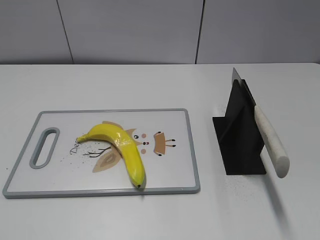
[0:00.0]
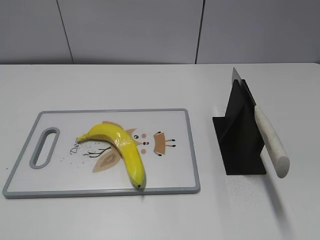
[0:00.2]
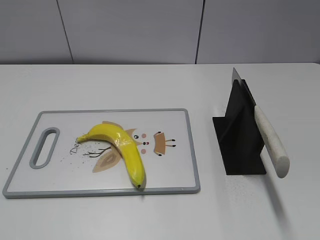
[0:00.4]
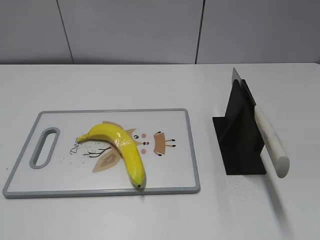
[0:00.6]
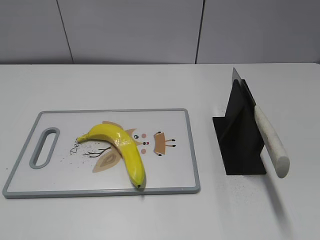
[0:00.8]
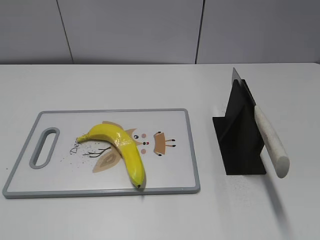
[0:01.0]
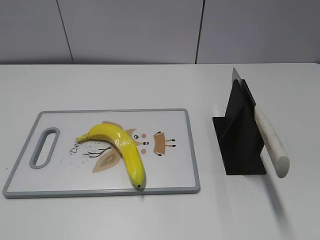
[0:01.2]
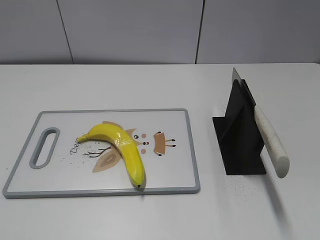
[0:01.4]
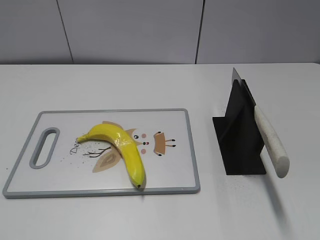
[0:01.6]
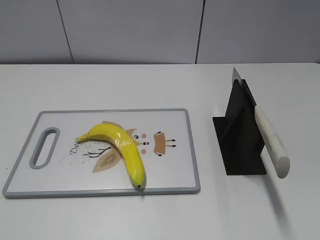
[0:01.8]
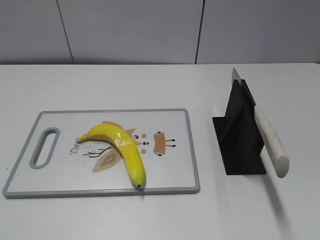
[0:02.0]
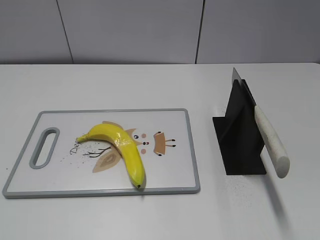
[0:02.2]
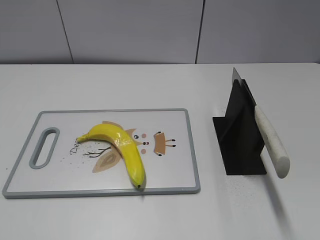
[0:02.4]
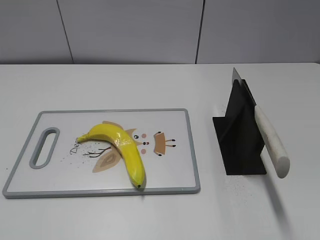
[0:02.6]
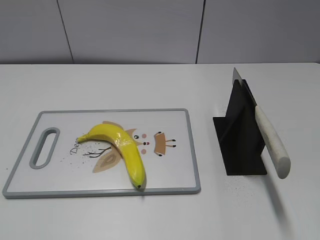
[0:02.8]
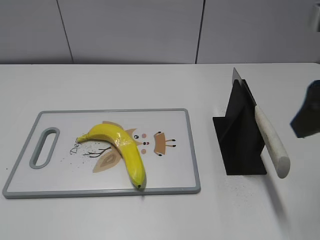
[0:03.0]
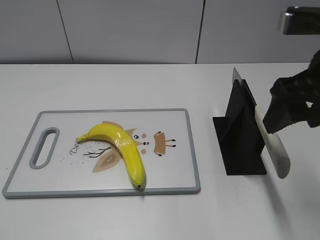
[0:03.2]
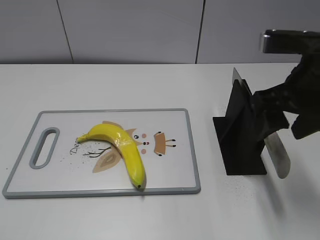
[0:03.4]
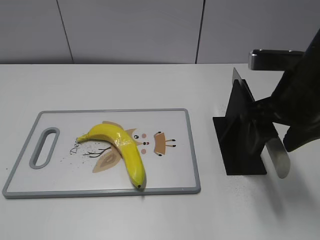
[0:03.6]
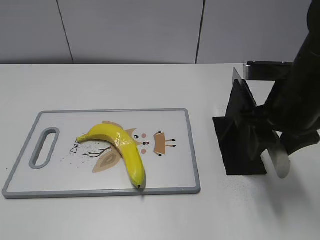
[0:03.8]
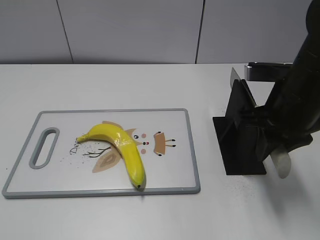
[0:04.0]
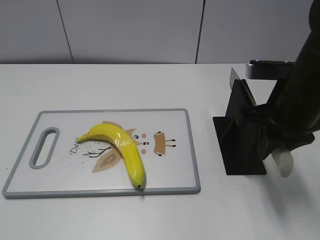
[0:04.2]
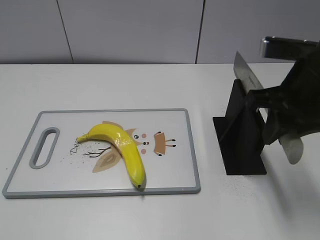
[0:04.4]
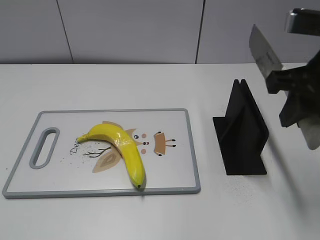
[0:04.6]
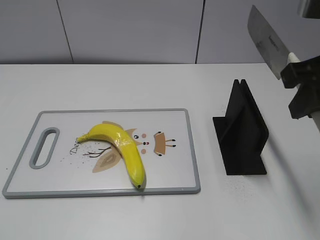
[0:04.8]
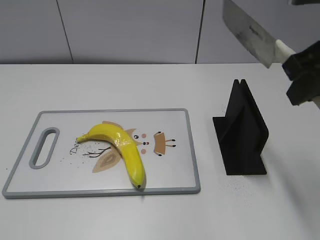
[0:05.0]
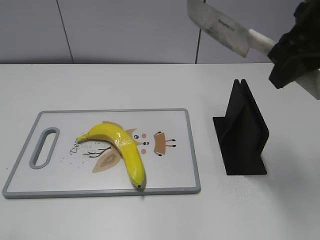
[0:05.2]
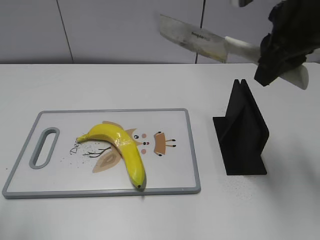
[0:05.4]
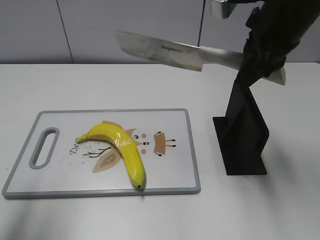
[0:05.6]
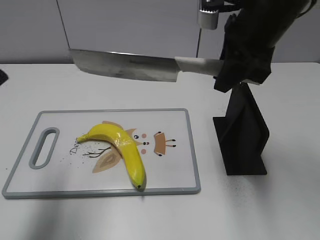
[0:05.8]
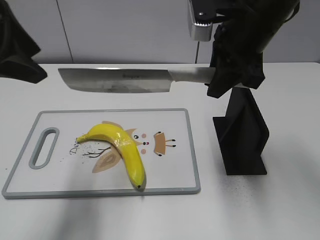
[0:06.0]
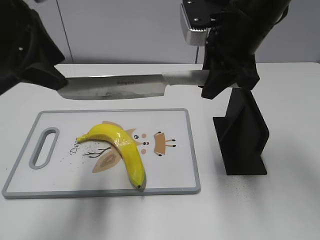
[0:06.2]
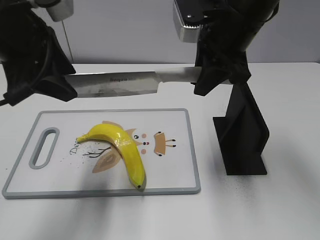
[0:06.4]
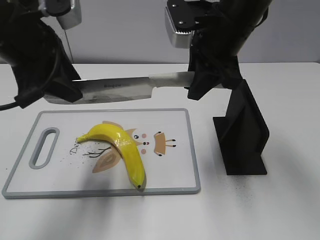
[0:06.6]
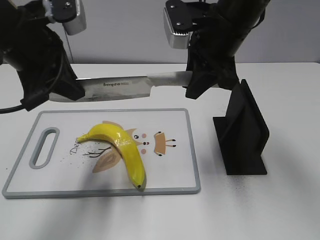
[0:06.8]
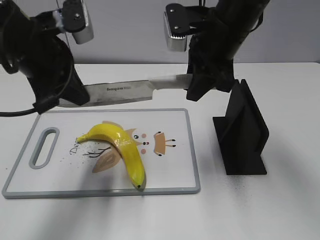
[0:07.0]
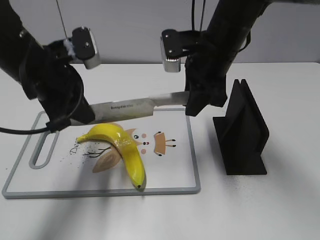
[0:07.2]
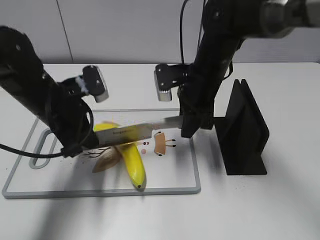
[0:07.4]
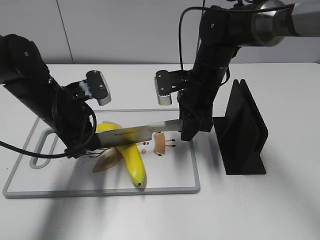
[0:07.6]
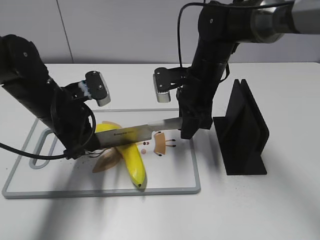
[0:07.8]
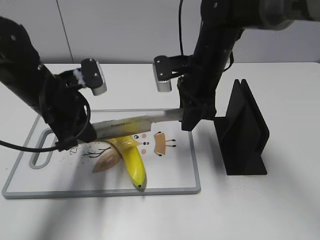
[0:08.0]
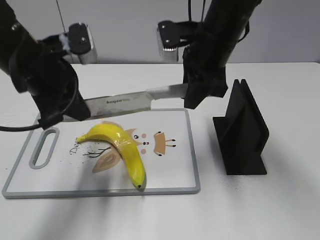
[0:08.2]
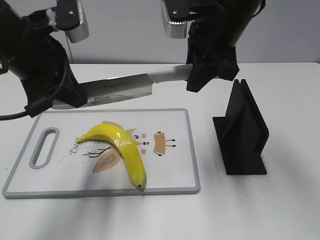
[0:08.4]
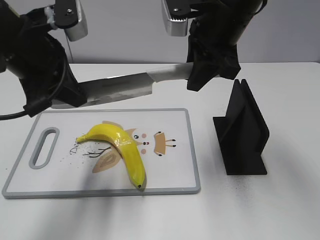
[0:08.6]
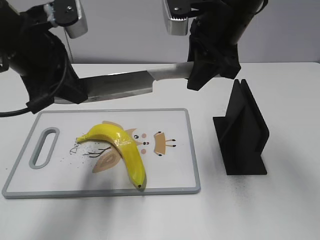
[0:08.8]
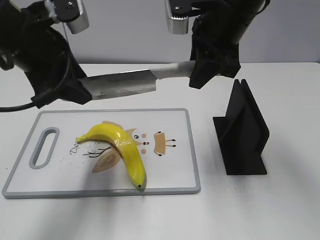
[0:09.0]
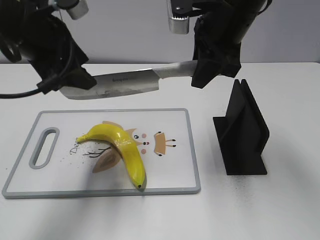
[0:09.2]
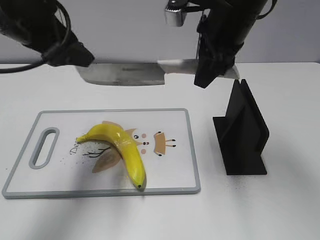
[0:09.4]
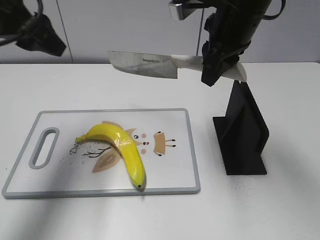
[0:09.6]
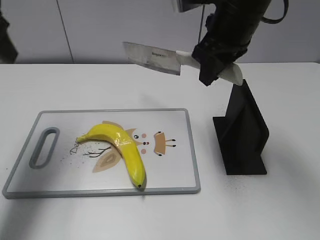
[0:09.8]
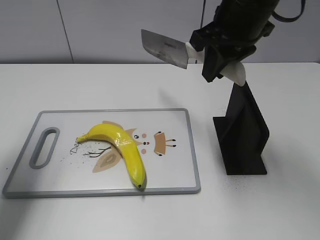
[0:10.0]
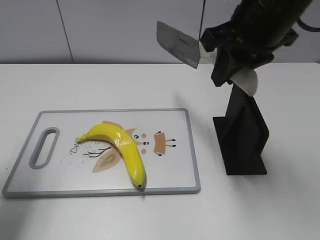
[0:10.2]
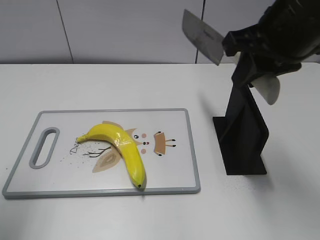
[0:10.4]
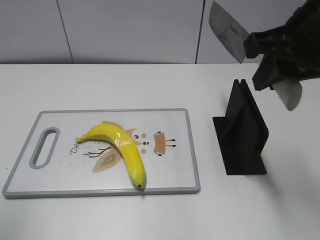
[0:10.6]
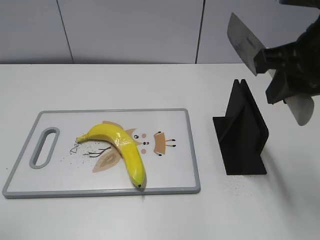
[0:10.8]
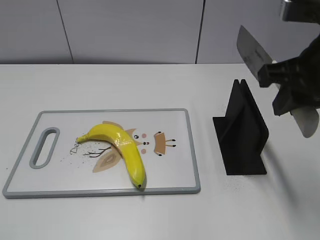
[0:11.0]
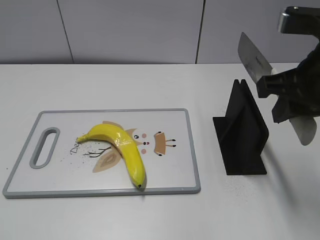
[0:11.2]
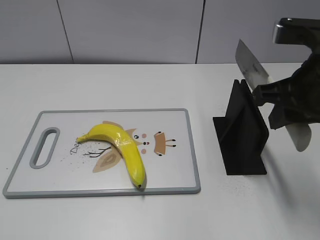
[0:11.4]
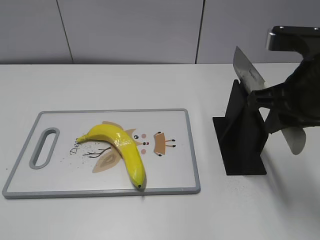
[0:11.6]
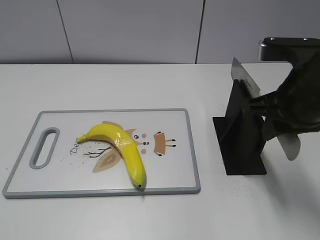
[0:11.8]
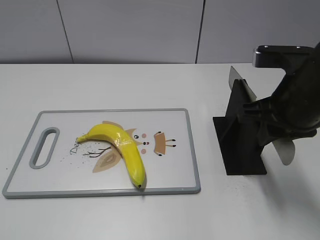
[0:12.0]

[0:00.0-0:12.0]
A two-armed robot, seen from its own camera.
Task of the whole recording: cut plastic banana.
Step, 0:00.0 to 0:05.0: Grab the knife handle with your right hand.
Step, 0:05.2 to 0:08.2: Lift the knife with your right hand.
Step, 0:08.4 to 0:09.6: Cut the banana with your right hand.
Step, 0:10.0 to 0:10.6: Lift the knife with your right hand.
0:01.6 to 0:03.0: The right gripper is displaced forward by about 20 cm.
0:03.0 to 0:04.4: The right gripper shifts some 10 cm downward and forward, and closes up.
0:04.4 to 0:06.0: The right gripper goes about 10 cm forward and to the left. Meanwhile the left gripper goes roughly 25 cm forward and to the right.
0:06.0 to 0:07.6: Both grippers travel together downward, roughly 20 cm. The left gripper closes its fingers.
0:07.6 to 0:09.0: The grippers both shift upward by roughly 15 cm. The left gripper opens up.
0:09.0 to 0:10.4: The left gripper is displaced to the left, backward and upward by approximately 15 cm. Meanwhile the right gripper goes about 10 cm backward and to the right.
0:10.4 to 0:12.0: The right gripper travels downward by some 10 cm. The left gripper travels backward by roughly 20 cm.

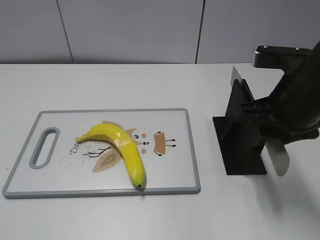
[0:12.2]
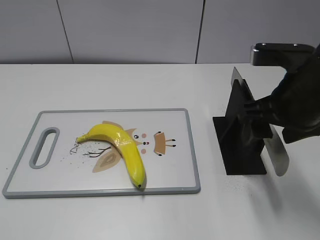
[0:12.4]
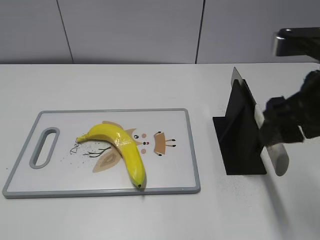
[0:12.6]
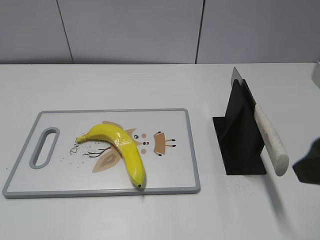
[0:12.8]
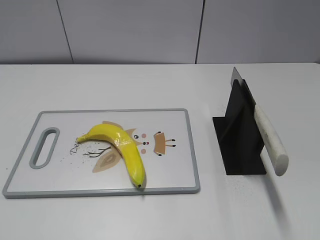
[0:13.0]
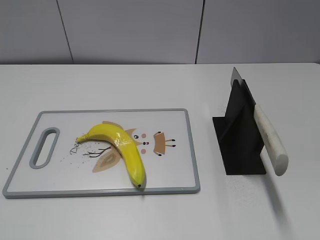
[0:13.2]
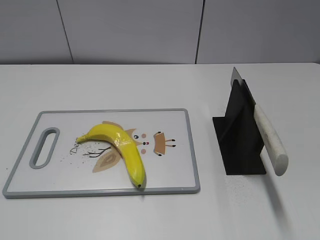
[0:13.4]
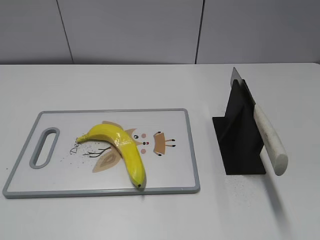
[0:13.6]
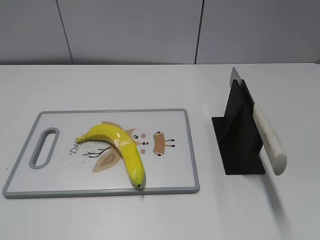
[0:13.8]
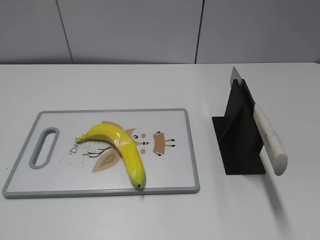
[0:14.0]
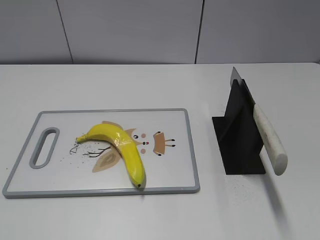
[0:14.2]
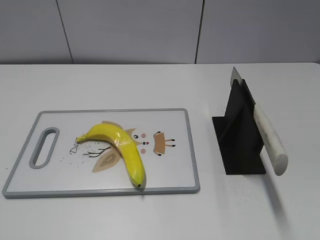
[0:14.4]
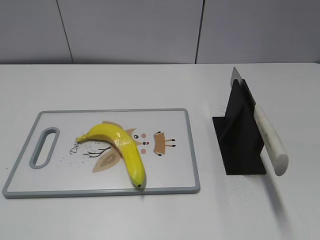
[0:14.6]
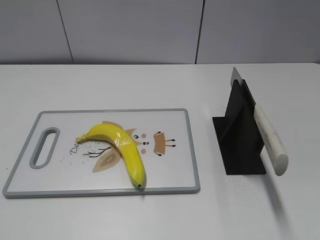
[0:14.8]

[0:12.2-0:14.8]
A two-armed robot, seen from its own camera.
Task of the whole recording: cut plastic banana.
Step, 0:12.2 to 0:14.8: Place the knife on the storage rack with your right hand.
0:12.2 to 0:13.4: The right gripper goes some 25 cm backward and to the right, and opens up.

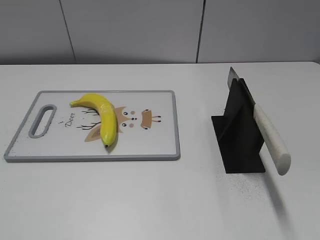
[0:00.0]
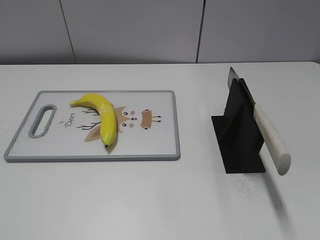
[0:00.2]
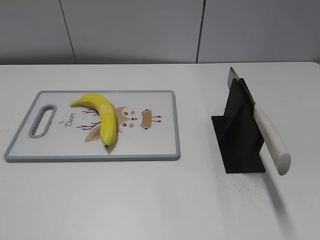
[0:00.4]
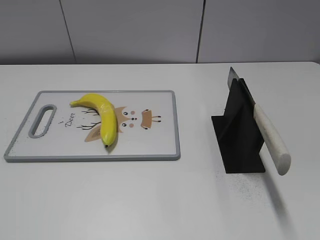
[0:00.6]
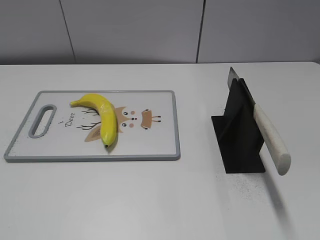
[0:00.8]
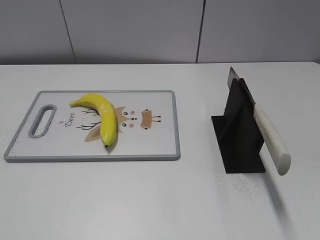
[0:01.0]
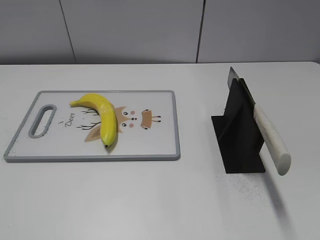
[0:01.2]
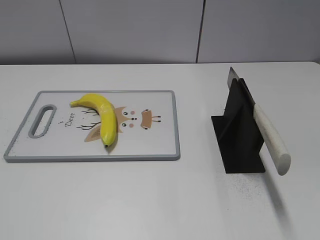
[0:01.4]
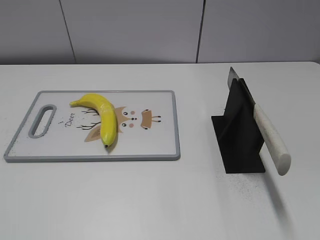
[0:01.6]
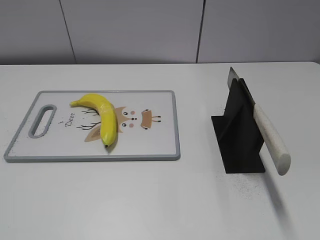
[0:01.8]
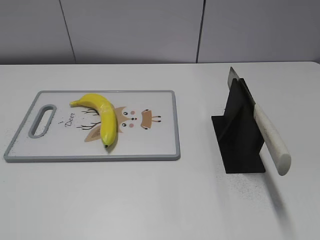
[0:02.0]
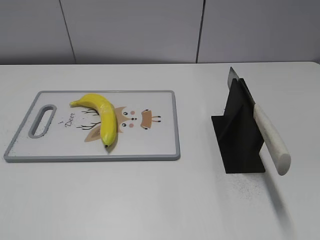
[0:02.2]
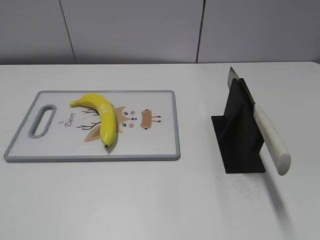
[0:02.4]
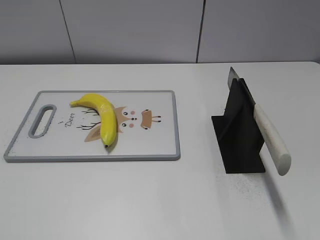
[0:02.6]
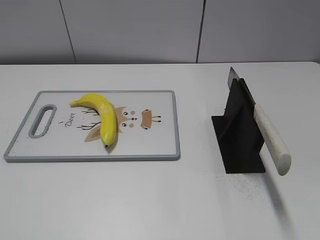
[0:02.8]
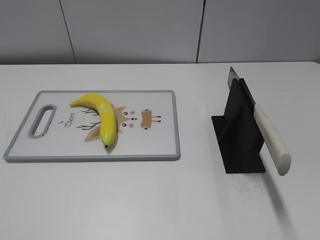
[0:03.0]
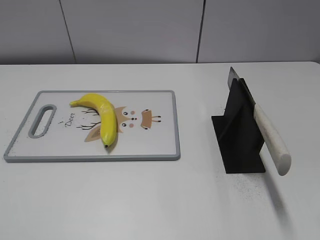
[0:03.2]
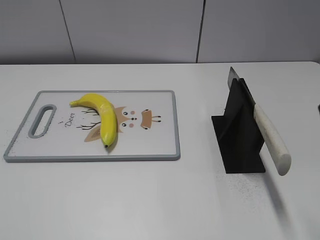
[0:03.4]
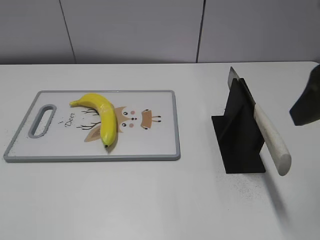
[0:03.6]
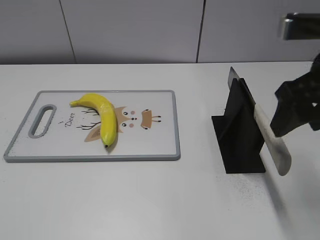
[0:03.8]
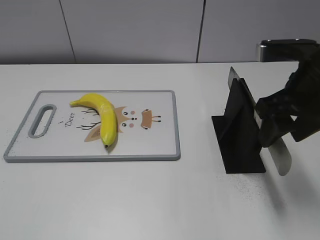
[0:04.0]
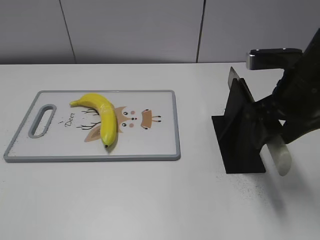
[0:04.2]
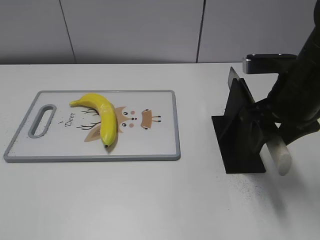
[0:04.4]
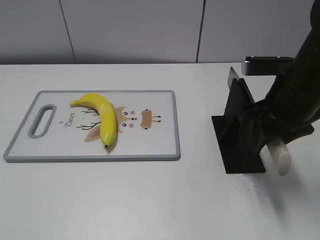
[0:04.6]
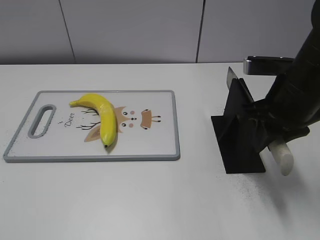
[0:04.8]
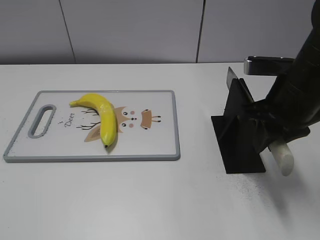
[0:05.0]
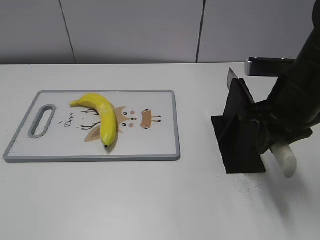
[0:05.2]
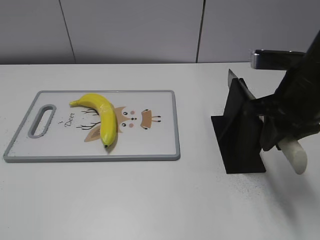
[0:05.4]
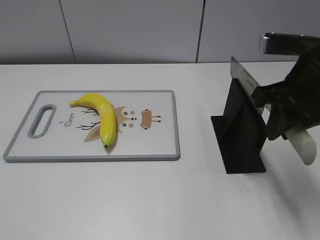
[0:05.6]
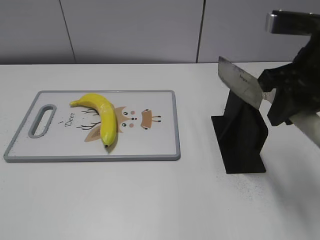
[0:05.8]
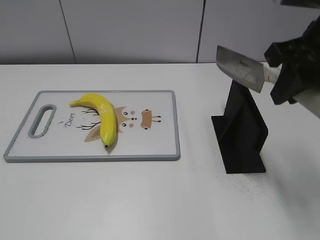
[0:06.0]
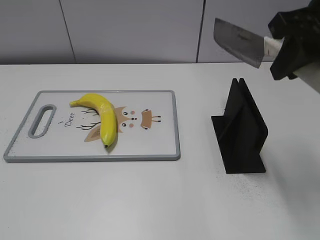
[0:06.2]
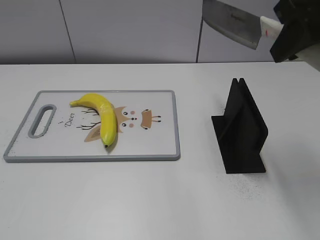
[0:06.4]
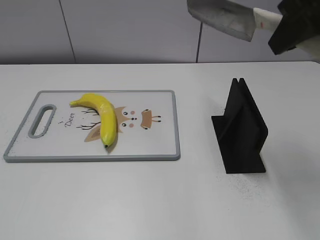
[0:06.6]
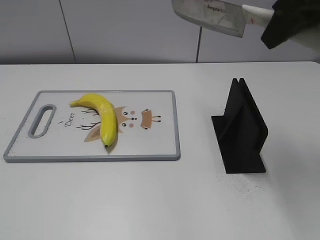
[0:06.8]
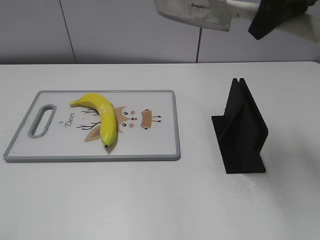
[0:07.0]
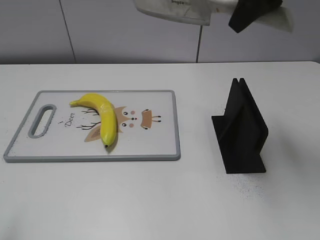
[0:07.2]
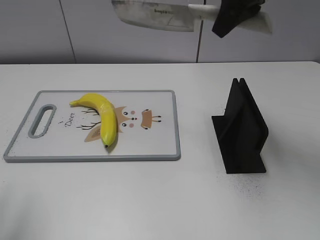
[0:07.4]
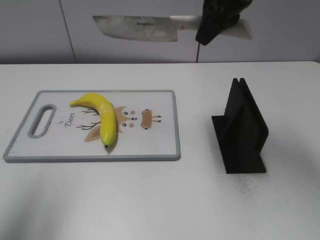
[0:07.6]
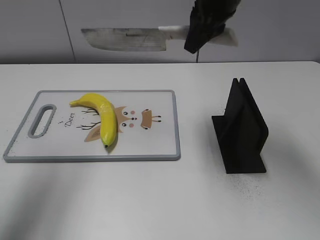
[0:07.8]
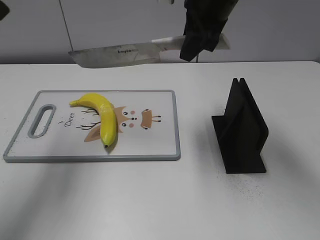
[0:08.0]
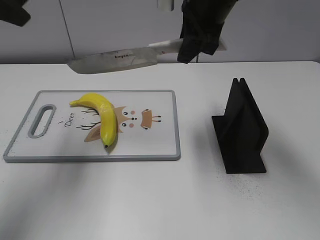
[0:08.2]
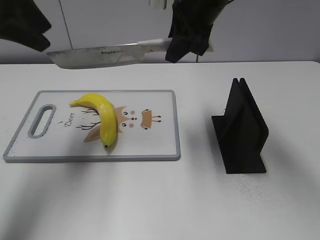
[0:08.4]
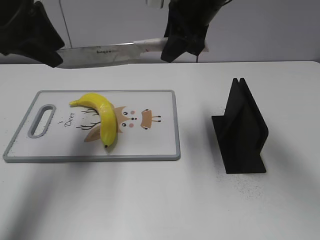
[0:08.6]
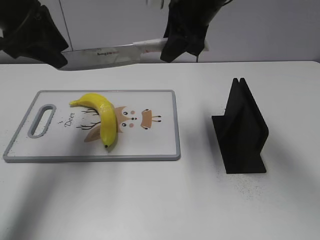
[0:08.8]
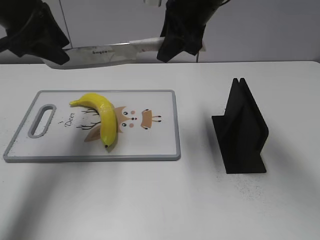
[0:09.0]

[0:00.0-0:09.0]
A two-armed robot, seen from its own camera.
Task of the whole recording: cut plastic banana.
Step, 0:00.0 to 0:06.0: Grab the knife handle with your right hand.
0:03.0 to 0:04.4: The right gripper travels forward, downward and to the left by approximately 25 cm.
0:04.4 to 0:06.0: The right gripper travels upward by approximately 10 cm, and closes its fingers.
0:06.0 to 0:07.6: The left gripper travels forward and upward by approximately 20 cm, while the right gripper moves forward and to the left, some 15 cm.
0:07.6 to 0:09.0: The right gripper changes place by roughly 5 cm, while the left gripper shifts approximately 20 cm forward and downward.
